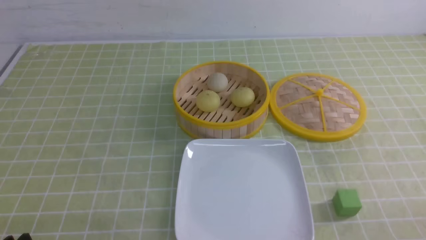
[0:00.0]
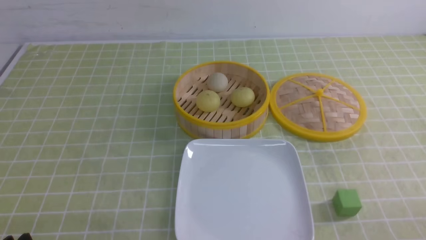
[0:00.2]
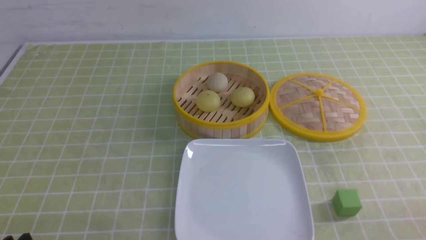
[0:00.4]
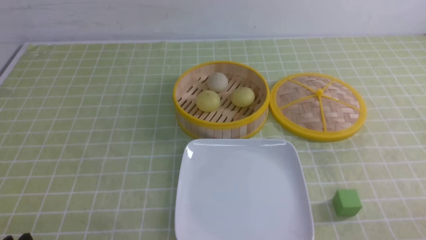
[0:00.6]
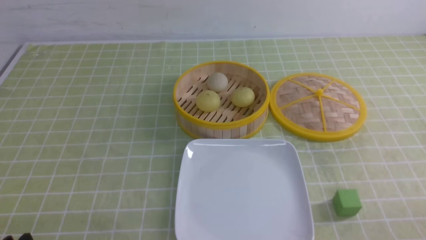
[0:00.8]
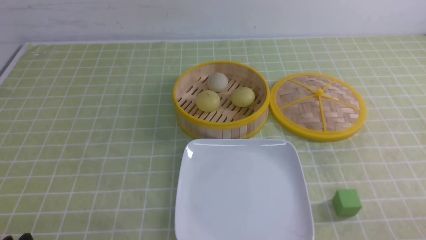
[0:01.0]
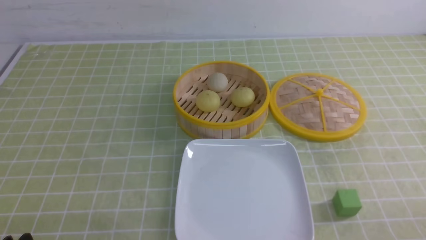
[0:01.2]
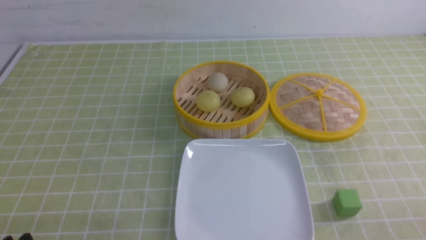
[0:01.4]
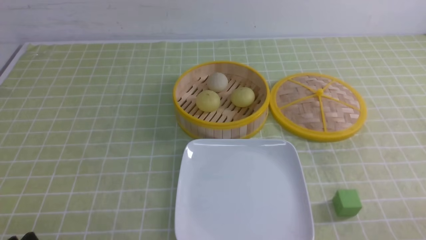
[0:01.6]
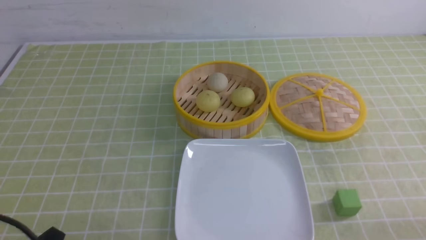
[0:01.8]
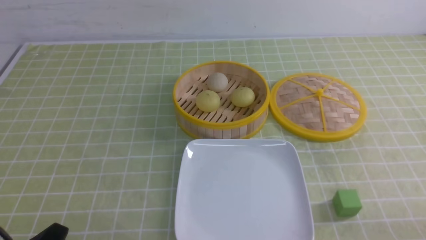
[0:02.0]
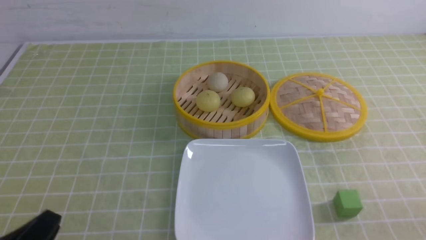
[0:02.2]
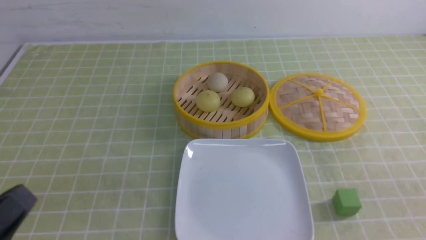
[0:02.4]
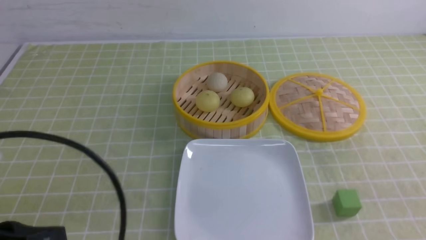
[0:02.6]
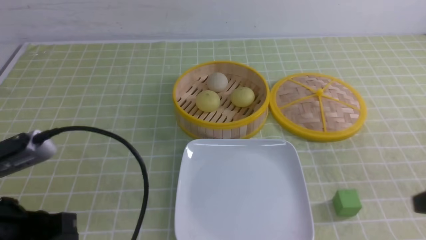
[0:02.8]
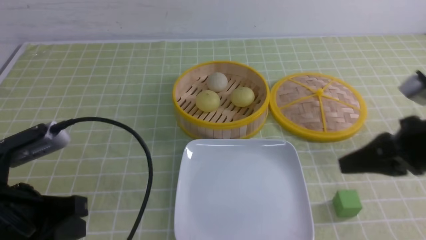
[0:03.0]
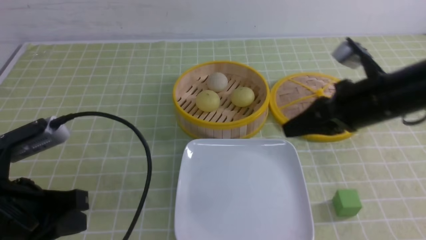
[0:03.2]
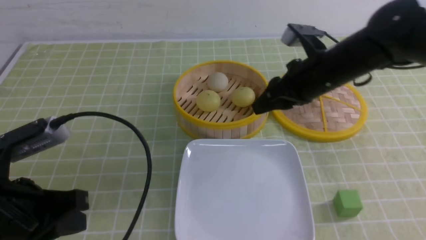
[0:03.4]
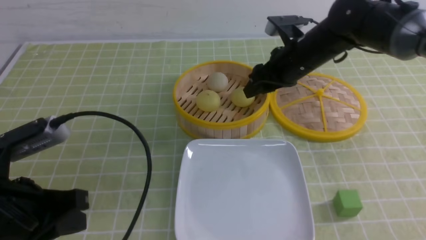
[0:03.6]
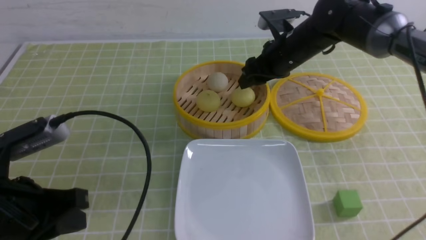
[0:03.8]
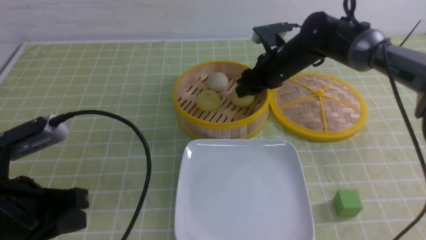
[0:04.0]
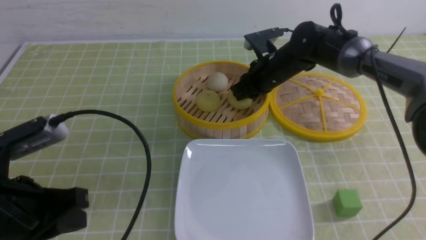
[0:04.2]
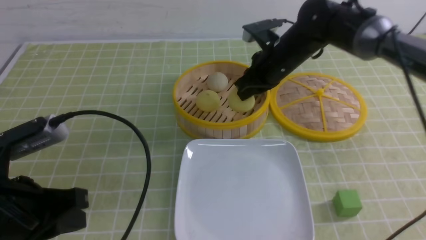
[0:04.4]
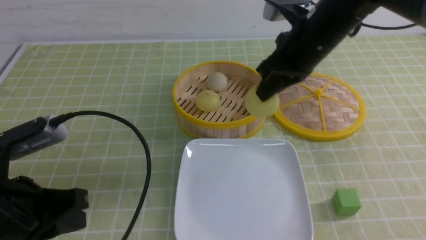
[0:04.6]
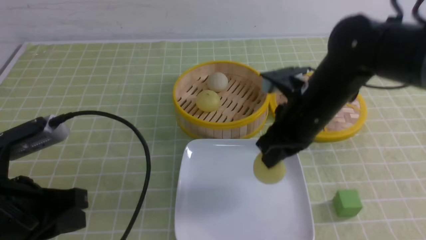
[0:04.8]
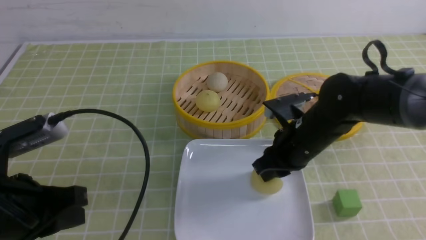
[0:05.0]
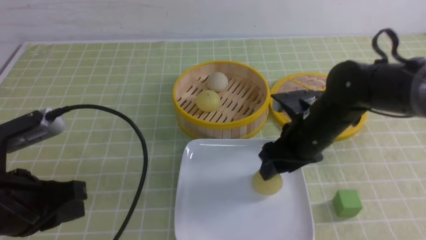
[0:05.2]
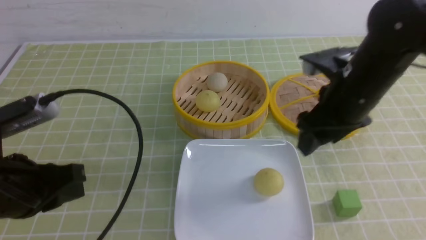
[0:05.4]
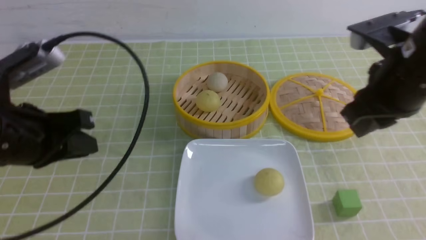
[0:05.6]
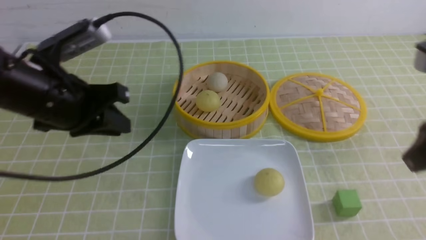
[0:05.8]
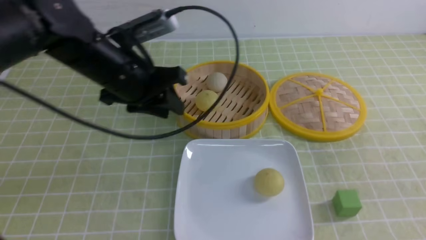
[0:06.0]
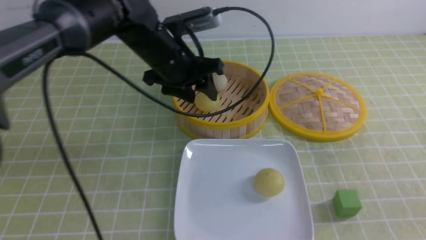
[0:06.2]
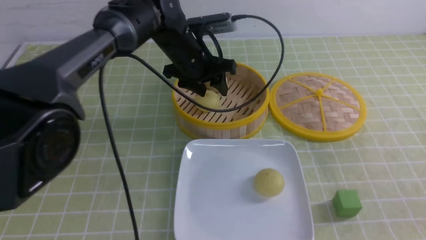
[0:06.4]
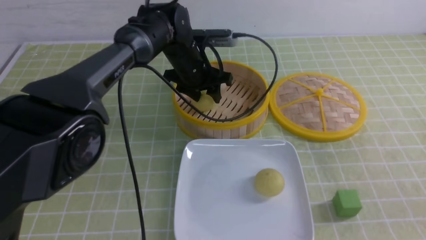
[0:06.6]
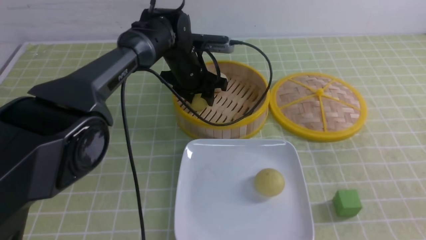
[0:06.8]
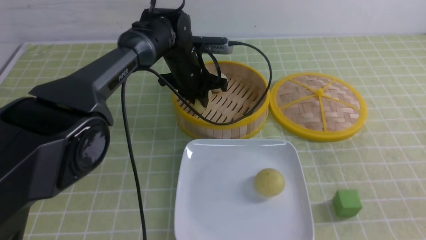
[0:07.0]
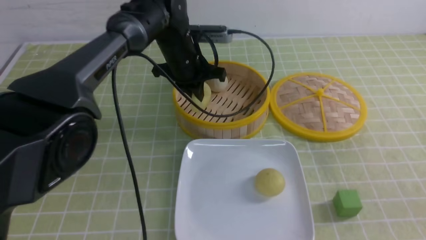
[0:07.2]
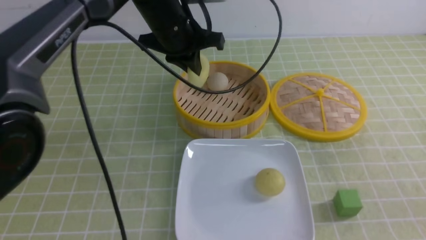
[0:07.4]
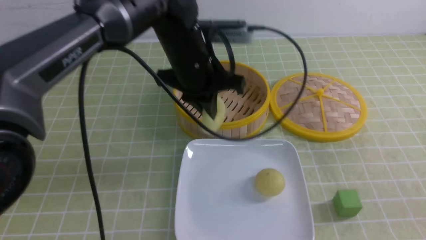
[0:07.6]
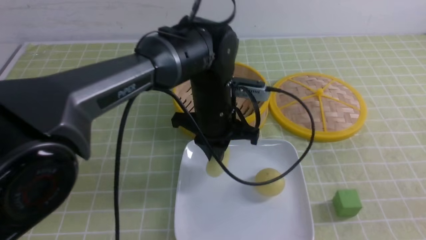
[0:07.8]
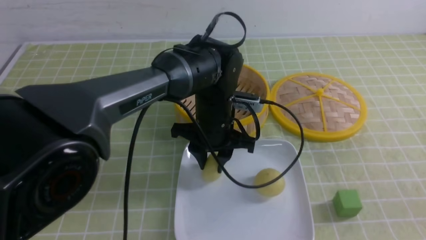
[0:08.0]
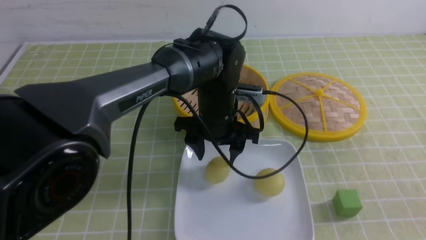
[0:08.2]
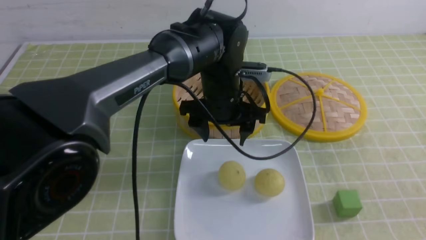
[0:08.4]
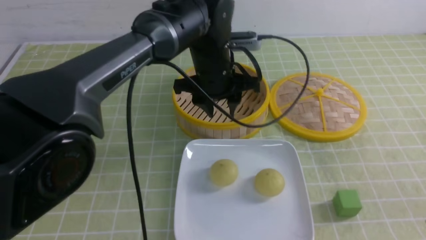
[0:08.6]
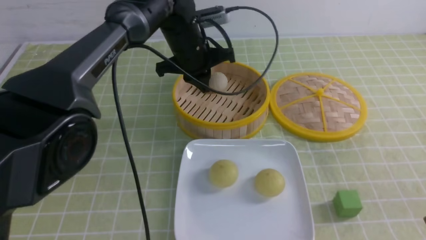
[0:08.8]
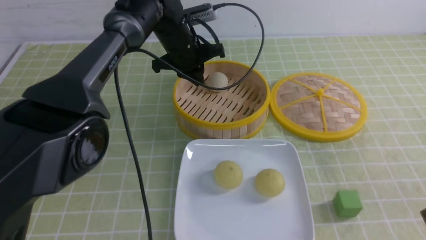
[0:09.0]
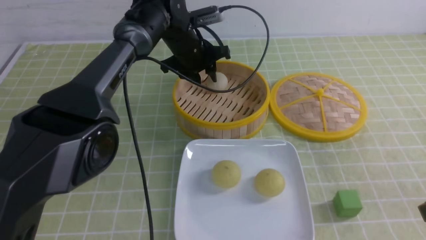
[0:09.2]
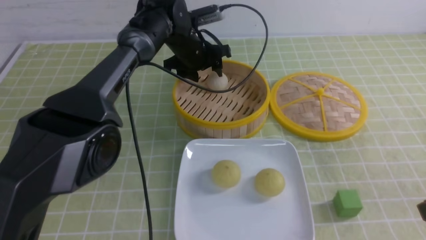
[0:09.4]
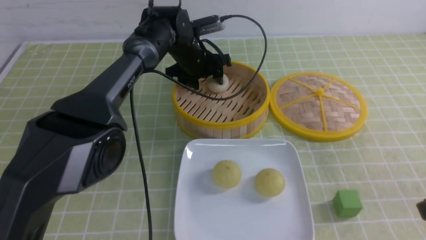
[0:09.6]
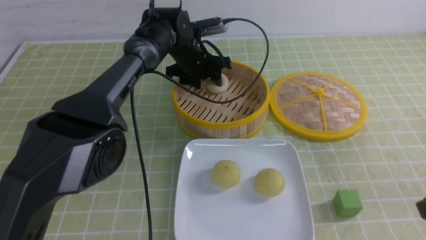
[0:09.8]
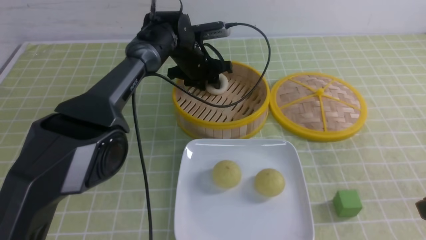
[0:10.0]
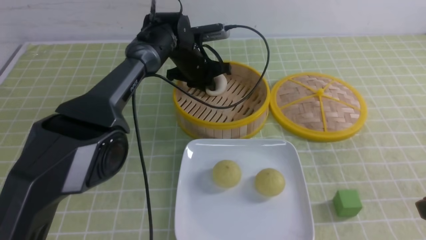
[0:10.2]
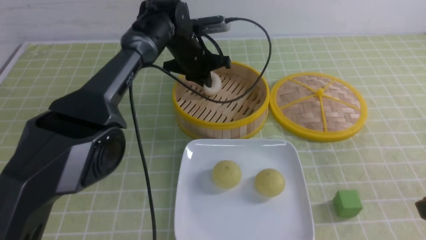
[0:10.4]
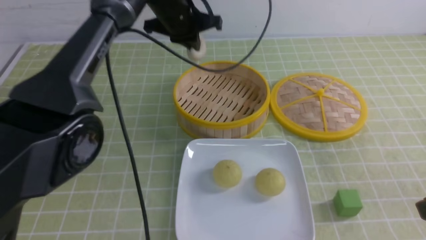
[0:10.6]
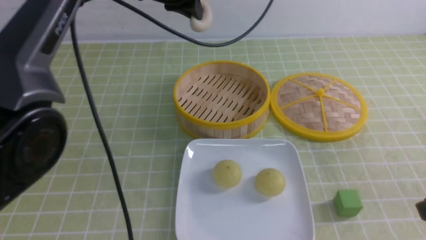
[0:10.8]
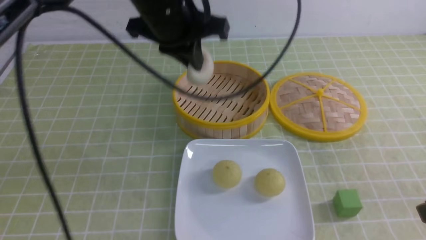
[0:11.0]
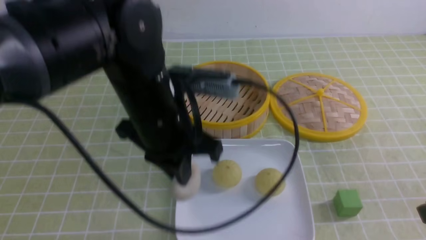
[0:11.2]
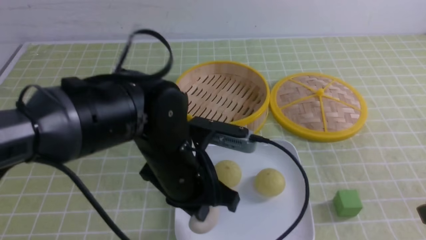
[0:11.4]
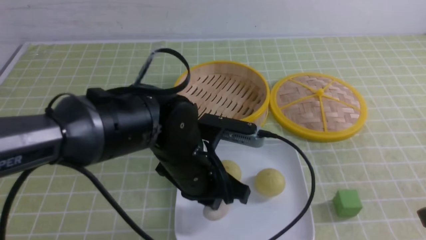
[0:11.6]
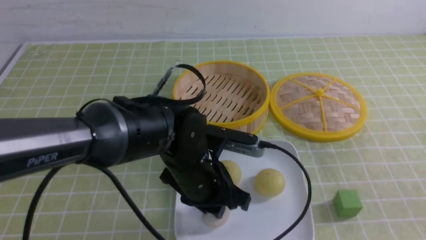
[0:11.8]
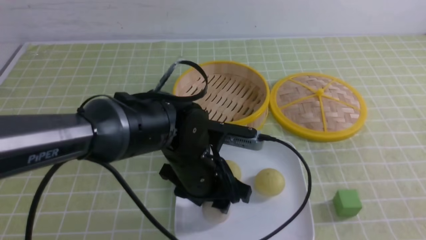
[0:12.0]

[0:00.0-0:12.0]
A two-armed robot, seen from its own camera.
Step, 0:00.0 to 0:04.2: use the right arm to grab the steamed stuffed bun that is closest to it.
Step, 0:04.4 to 0:05.0: use the right arm to put the steamed stuffed bun into the plate.
Step, 0:05.2 to 0:06.8: use the left arm to grab the steamed stuffed bun that is closest to it.
Step, 0:07.0 to 0:08.0: use the left arm to put the steamed stuffed bun into the plate.
Step, 0:08.2 to 0:10.2: use the left arm to grab the steamed stuffed bun that is closest to it.
0:01.6 to 0:03.0: The left gripper travels upward and forward by about 15 cm, and closes up. Meanwhile the right gripper moves forward, upward and to the left, some 20 cm, and closes its fingers.
0:03.0 to 0:04.4: The right gripper is displaced forward and to the left by about 25 cm, and opens, then closes again.
0:04.4 to 0:06.0: The left gripper moves forward and to the right, about 20 cm, and opens up. The right gripper is displaced backward and to the right by approximately 35 cm, and opens and closes again.
0:06.0 to 0:07.6: The left gripper moves to the right, about 10 cm, travels forward and back again, roughly 15 cm each way, and closes up.
0:07.6 to 0:09.0: The left gripper moves forward, about 10 cm, and opens and closes again.
0:09.0 to 0:10.4: The left gripper opens and closes again.
0:10.4 to 0:12.0: The left gripper shifts roughly 25 cm backward, and opens. The right gripper goes roughly 5 cm backward.

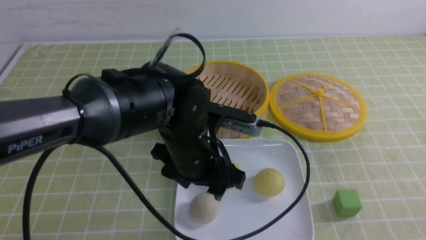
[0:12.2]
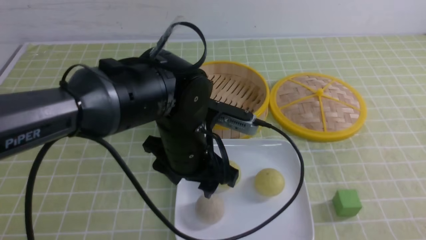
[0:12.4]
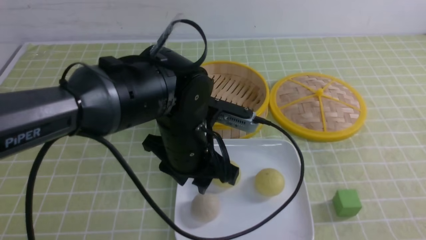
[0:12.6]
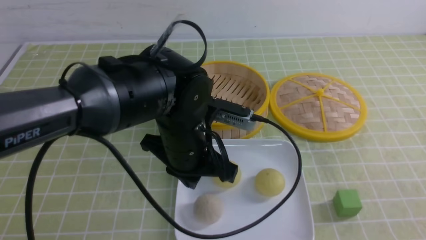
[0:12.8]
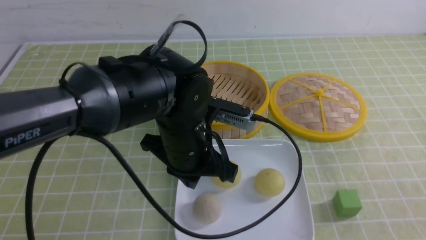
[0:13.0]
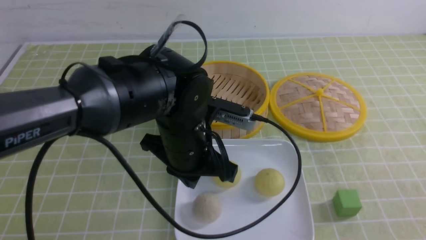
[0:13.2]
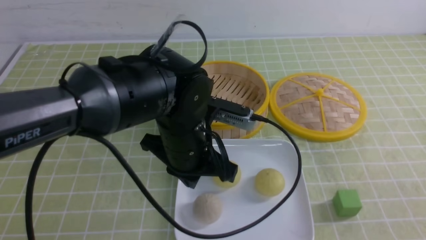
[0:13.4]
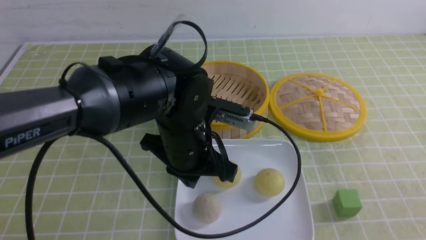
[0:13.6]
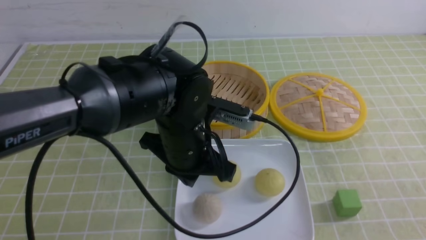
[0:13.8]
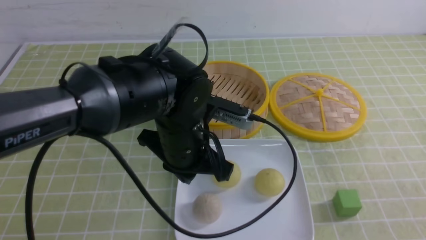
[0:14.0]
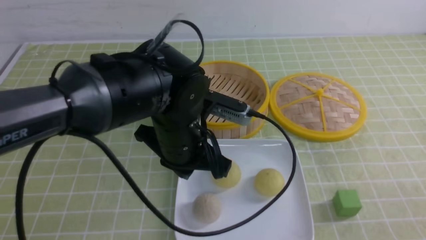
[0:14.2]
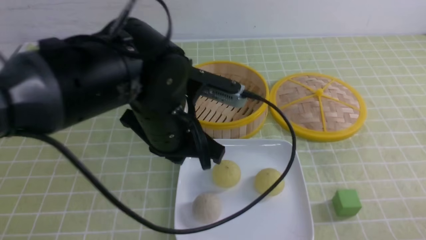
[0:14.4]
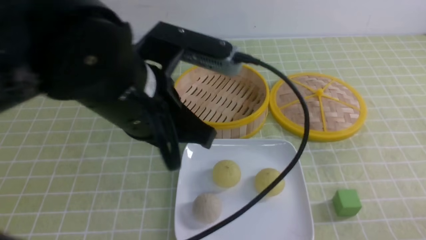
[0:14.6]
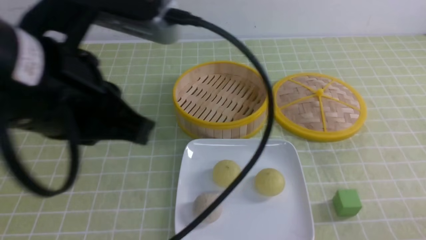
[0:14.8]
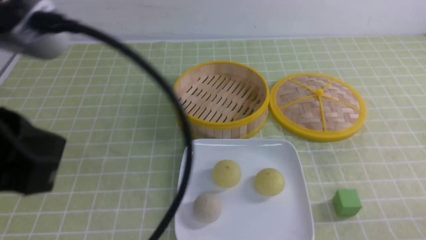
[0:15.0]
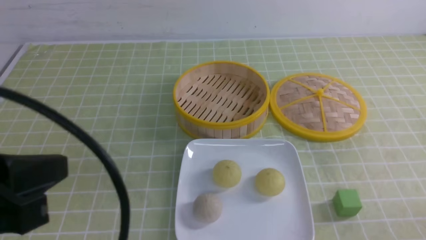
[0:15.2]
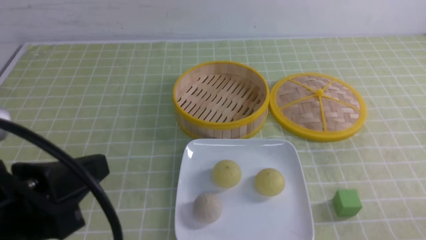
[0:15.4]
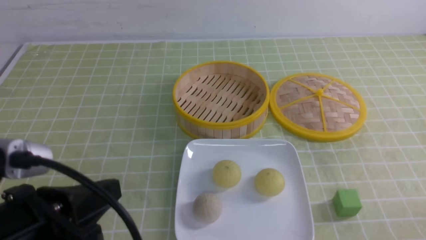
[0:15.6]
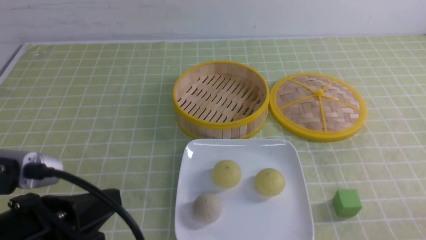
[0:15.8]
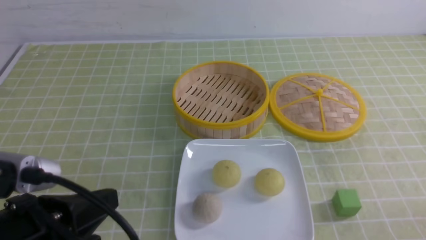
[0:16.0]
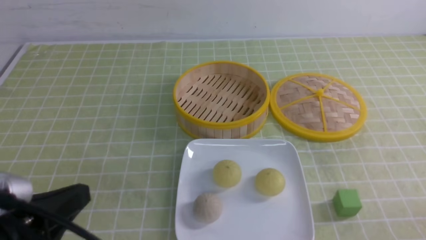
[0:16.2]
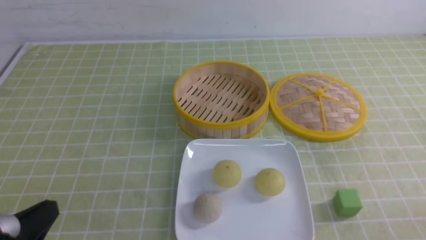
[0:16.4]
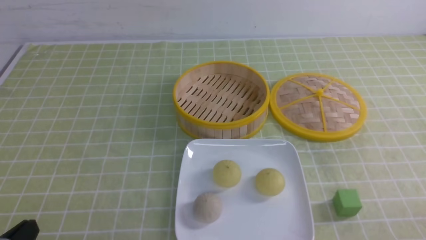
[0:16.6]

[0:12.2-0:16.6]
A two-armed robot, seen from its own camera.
0:12.2 to 0:13.6: The left gripper closes.
0:13.6 to 0:15.2: The right gripper travels downward by approximately 10 cm. The left gripper shifts some 25 cm backward, to the left and upward.
0:15.2 to 0:16.6: The left gripper moves downward, some 15 cm.
